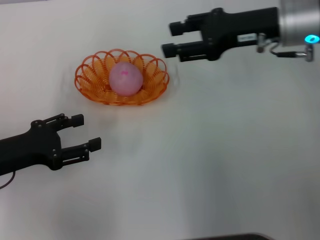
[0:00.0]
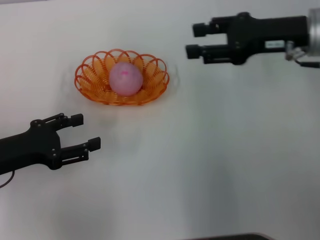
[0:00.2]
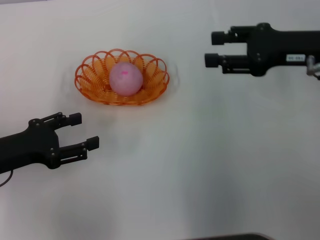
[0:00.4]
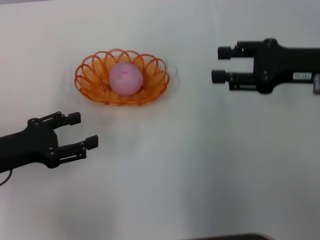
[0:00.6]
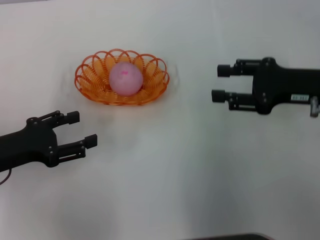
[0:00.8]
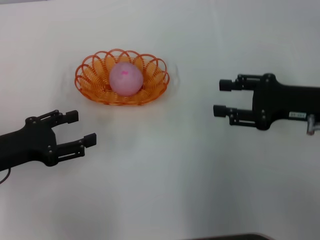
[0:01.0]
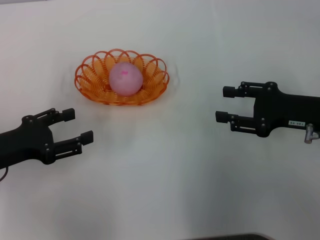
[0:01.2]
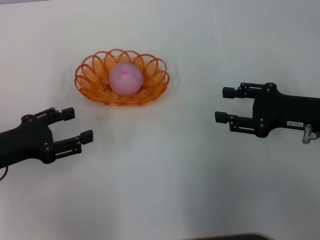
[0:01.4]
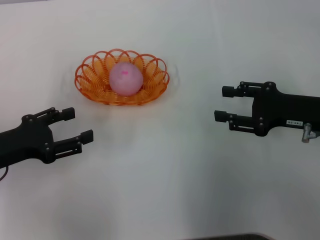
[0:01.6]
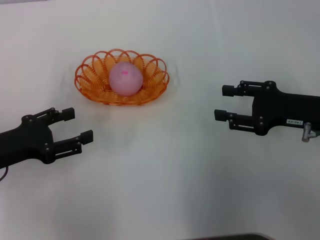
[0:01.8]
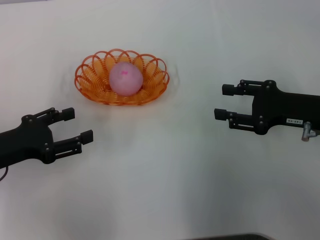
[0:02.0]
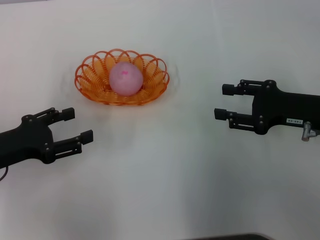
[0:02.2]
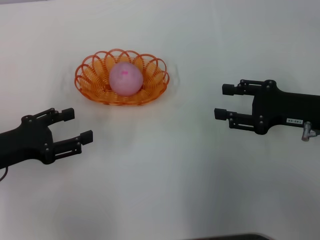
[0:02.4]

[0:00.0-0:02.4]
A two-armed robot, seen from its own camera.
0:00.0 to 0:01.2: The right gripper shifts approximately 15 cm backward, downward and to the right.
0:01.2 to 0:02.4: Both grippers stay put.

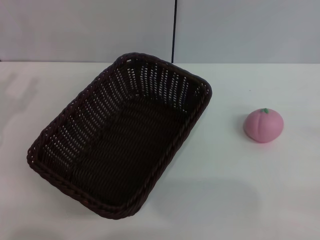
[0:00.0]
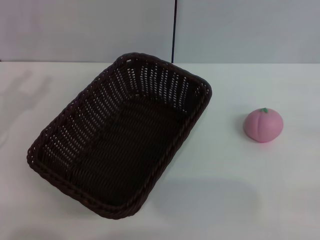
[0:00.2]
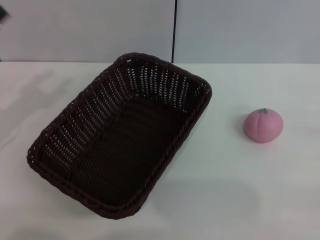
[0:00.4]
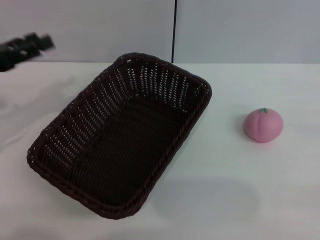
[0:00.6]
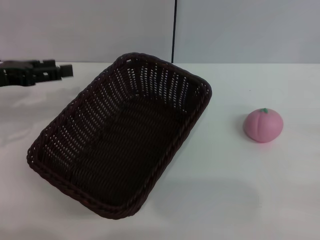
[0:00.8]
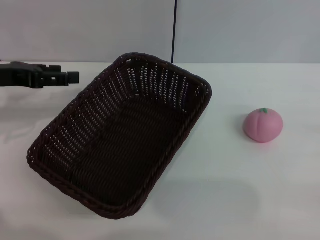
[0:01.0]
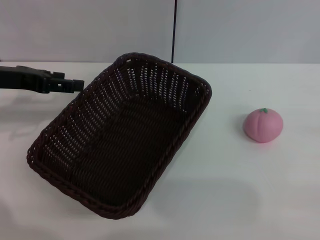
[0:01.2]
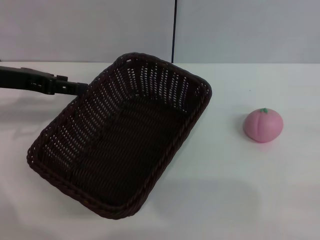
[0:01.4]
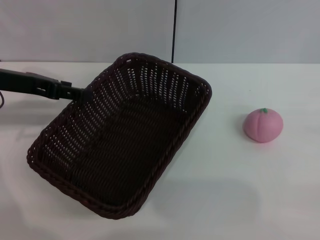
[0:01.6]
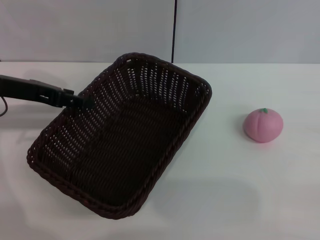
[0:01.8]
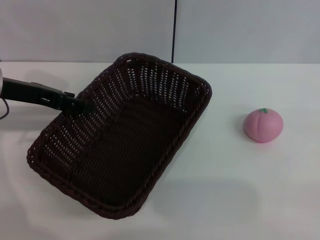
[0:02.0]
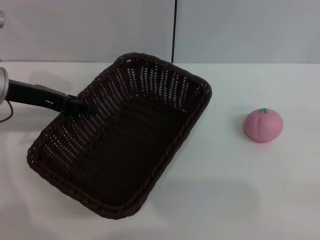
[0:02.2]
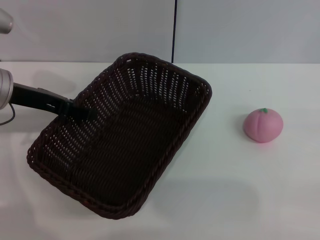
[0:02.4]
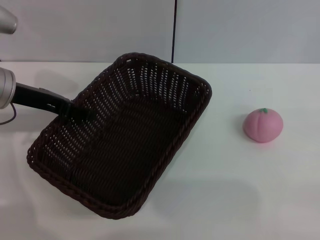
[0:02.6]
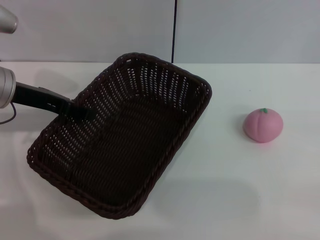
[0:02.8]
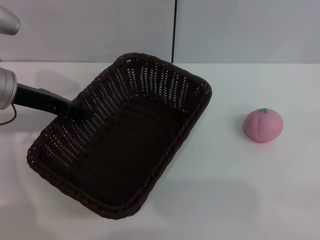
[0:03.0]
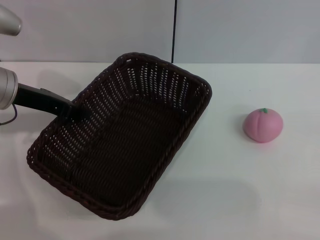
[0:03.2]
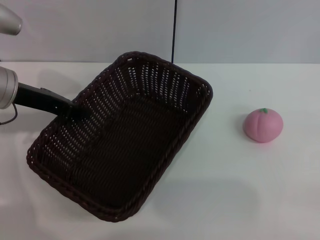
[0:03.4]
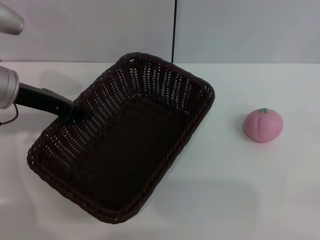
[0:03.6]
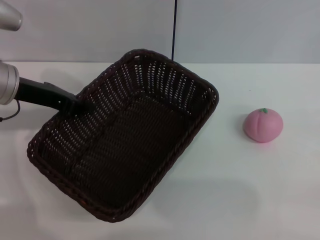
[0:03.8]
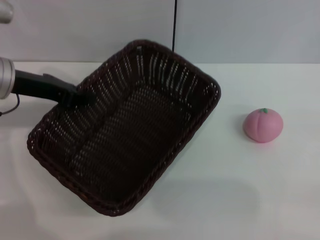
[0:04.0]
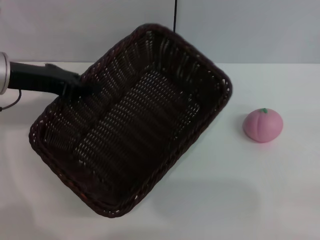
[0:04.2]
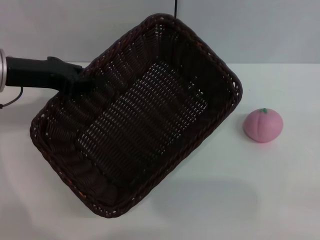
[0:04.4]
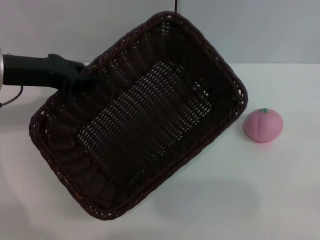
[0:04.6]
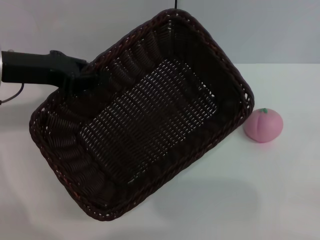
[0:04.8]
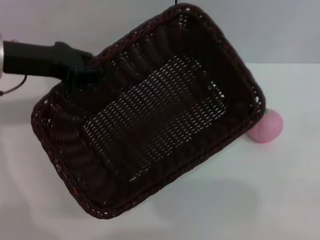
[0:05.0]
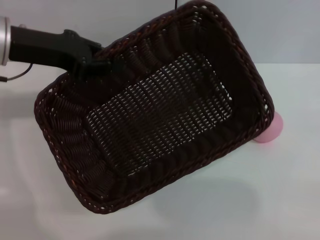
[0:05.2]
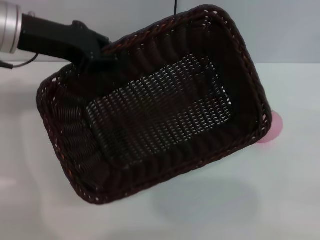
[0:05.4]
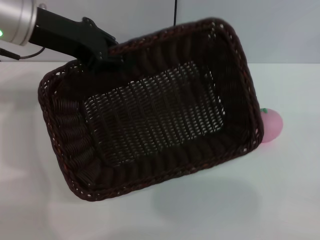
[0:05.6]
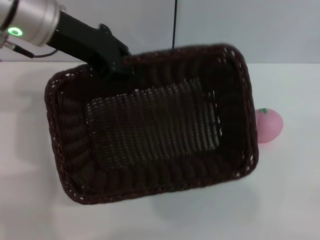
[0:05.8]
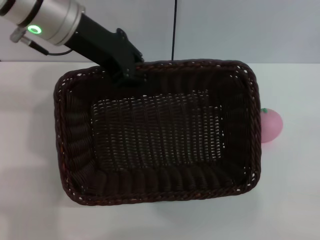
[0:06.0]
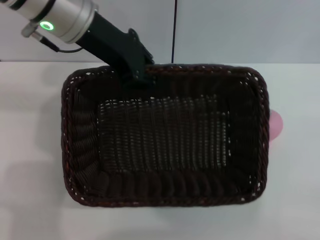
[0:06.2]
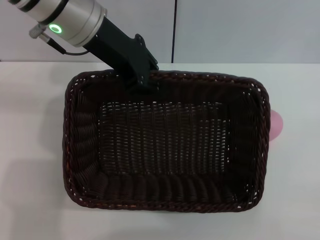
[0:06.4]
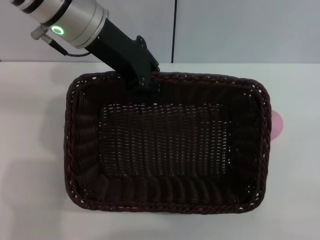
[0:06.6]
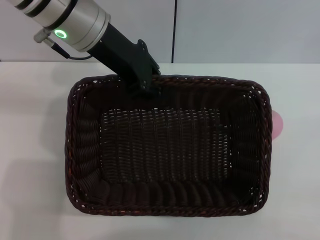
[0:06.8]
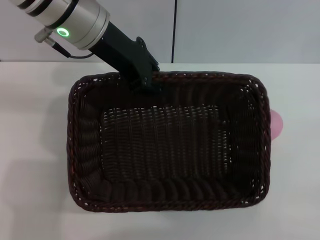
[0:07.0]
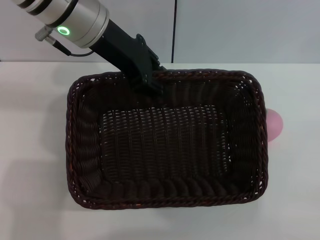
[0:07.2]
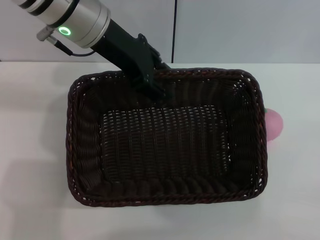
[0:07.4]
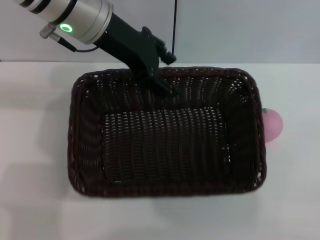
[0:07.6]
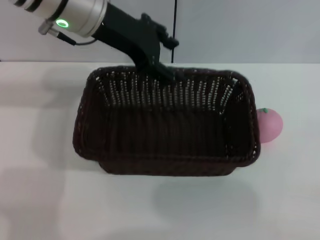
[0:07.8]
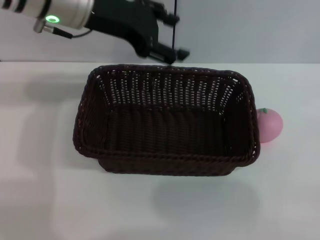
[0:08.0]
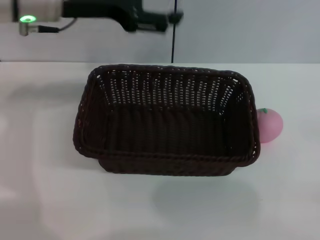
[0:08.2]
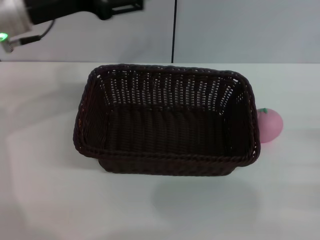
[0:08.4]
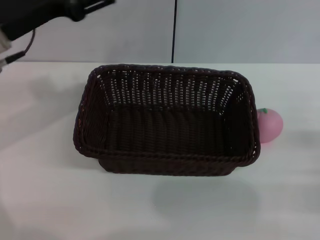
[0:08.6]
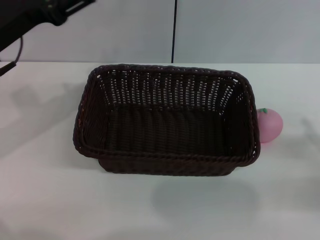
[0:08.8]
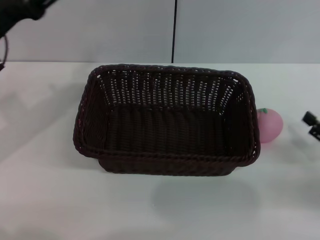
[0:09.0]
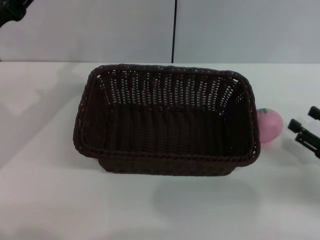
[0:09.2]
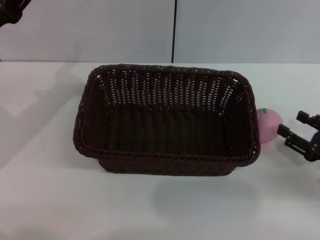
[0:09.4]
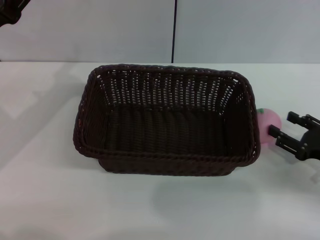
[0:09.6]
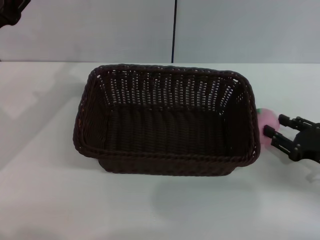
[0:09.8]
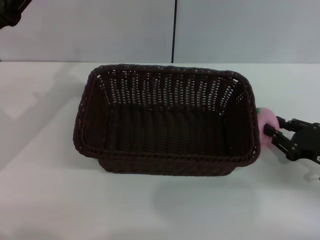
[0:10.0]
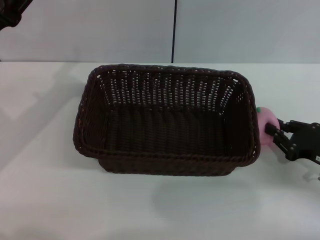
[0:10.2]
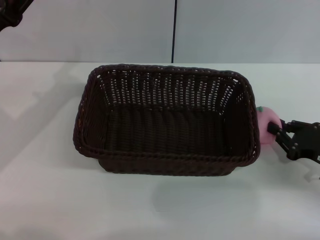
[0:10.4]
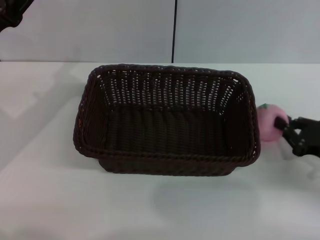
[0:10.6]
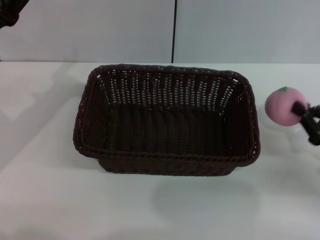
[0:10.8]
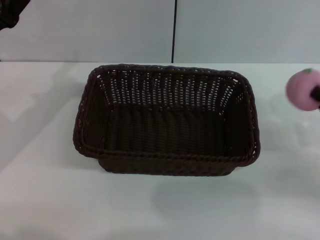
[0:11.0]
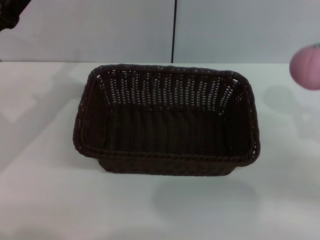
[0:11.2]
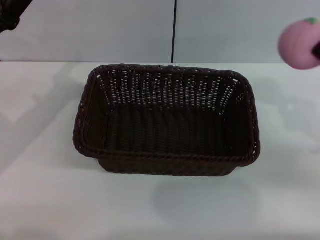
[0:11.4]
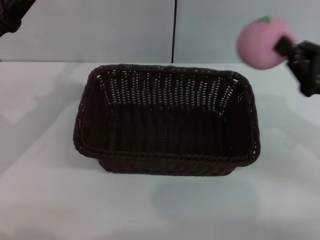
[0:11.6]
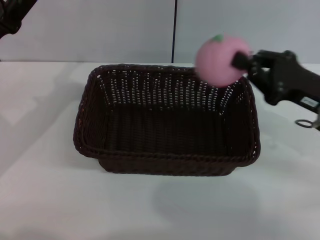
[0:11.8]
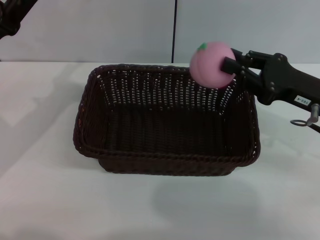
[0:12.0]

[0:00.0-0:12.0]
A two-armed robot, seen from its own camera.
Step, 0:00.0 to 0:04.0: Pick up the dark basket with the left gripper.
Step, 0:04.2 to 0:07.8: Place the dark basket in the center of view with the right gripper.
Step, 0:08.0 to 0:11.2: Pick up the peach with the left gripper.
0:00.0 to 0:01.6: The left gripper travels forward, upward and to the right by approximately 15 cm.
0:01.6 to 0:03.0: The left gripper closes its fingers.
0:03.0 to 0:04.4: The left gripper closes up.
0:04.4 to 0:06.0: The left gripper heads to the right and upward, covering approximately 15 cm.
0:06.0 to 0:07.6: The left gripper opens its fingers.
0:07.6 to 0:09.0: The left gripper goes about 20 cm to the left, backward and downward.
0:09.0 to 0:10.4: The right gripper shifts by roughly 5 cm, and closes.
0:10.4 to 0:12.0: The right gripper heads upward, to the left and forward, covering approximately 10 cm.

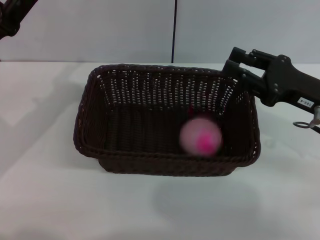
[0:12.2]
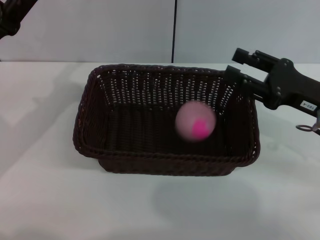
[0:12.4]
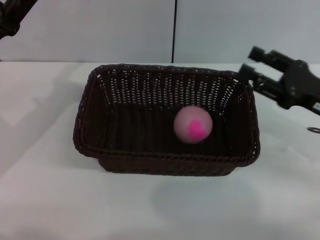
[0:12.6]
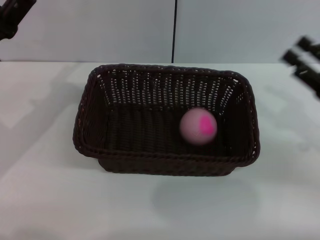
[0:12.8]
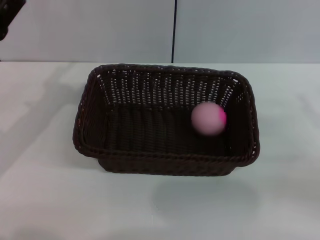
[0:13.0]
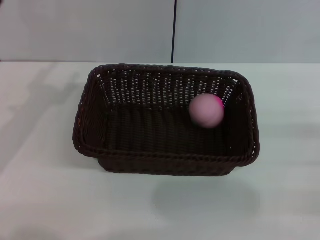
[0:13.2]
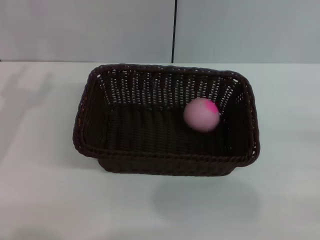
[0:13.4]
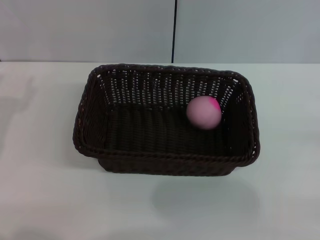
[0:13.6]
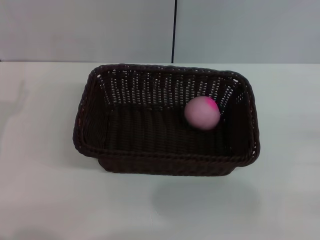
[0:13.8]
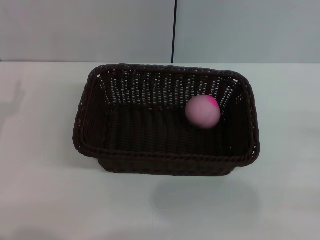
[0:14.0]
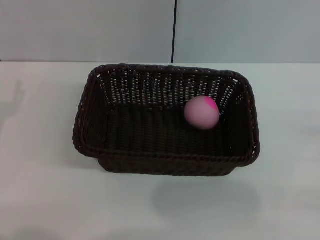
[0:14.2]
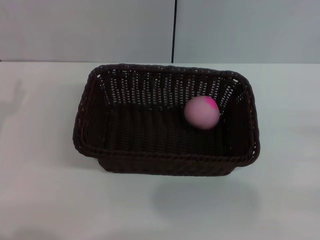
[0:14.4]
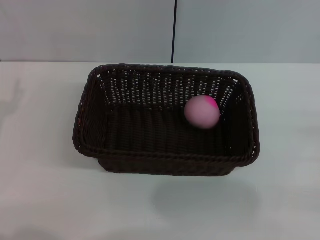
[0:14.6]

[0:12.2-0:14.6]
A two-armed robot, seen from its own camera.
0:12.2 to 0:13.4: The right gripper travels to the right and backward by approximately 20 cm, and opens its fingers, while the left gripper ends up about 5 cm from where it was.

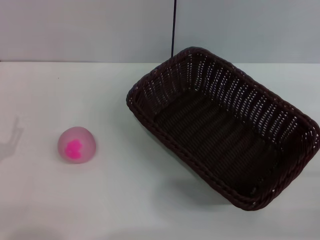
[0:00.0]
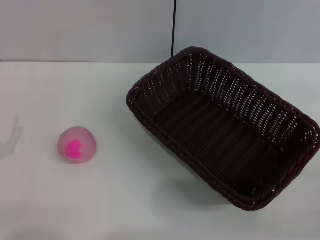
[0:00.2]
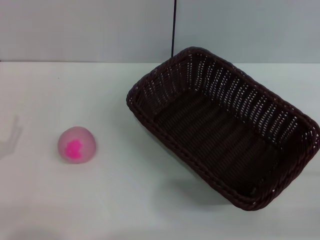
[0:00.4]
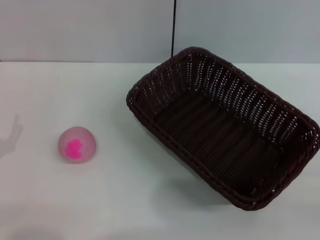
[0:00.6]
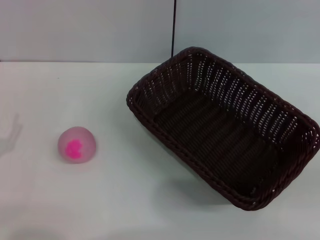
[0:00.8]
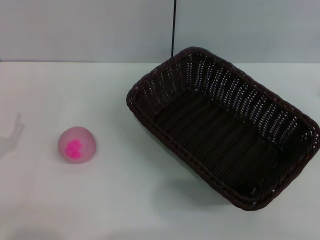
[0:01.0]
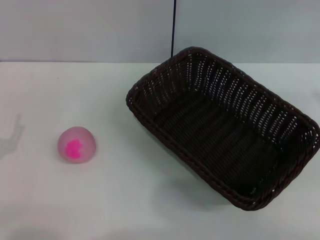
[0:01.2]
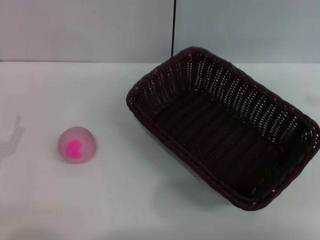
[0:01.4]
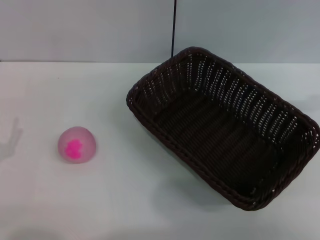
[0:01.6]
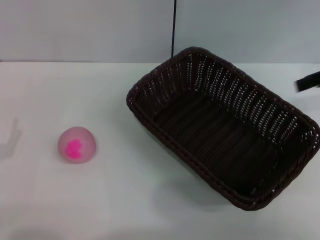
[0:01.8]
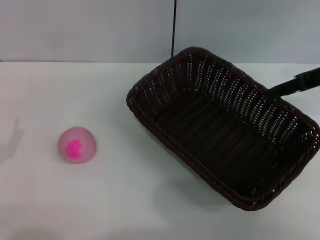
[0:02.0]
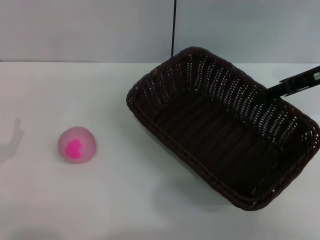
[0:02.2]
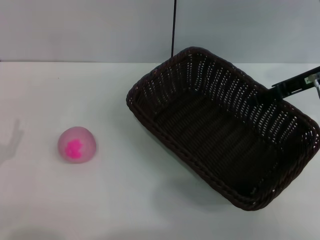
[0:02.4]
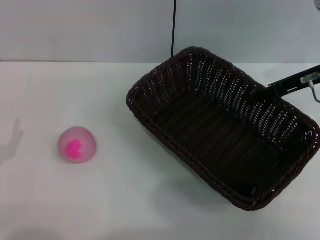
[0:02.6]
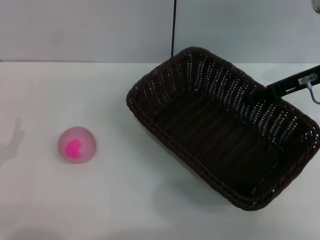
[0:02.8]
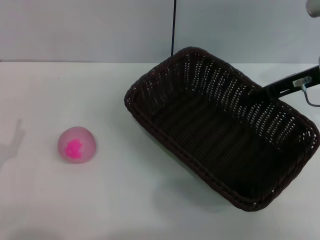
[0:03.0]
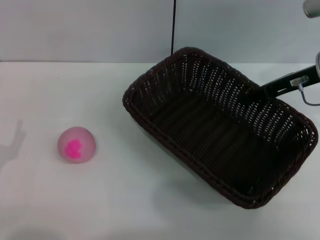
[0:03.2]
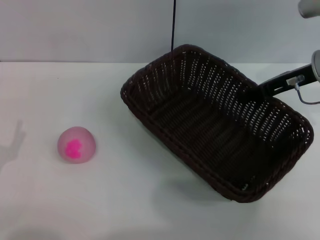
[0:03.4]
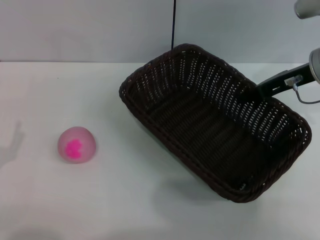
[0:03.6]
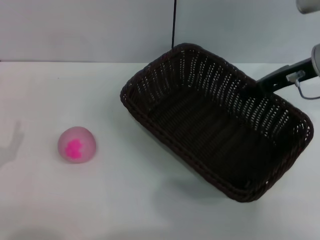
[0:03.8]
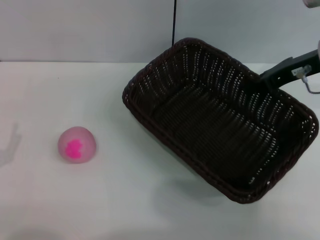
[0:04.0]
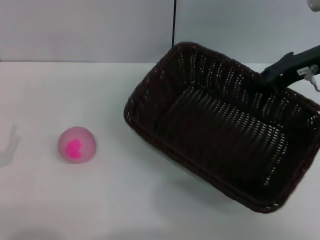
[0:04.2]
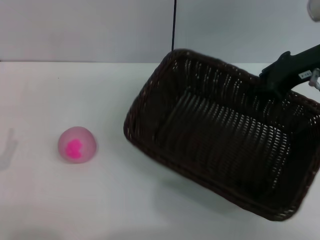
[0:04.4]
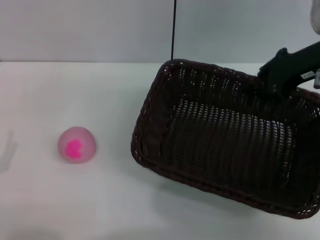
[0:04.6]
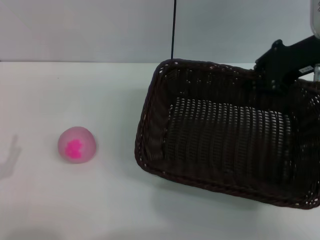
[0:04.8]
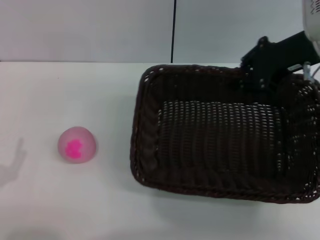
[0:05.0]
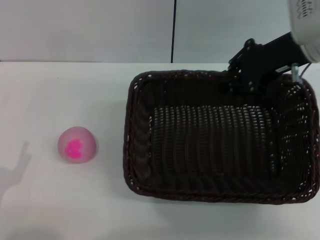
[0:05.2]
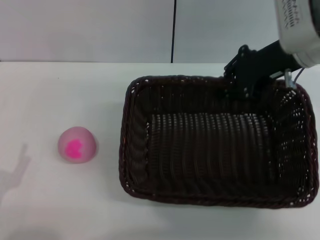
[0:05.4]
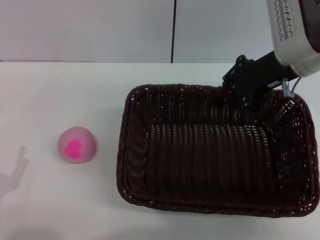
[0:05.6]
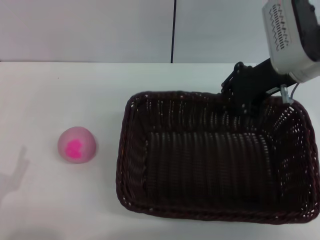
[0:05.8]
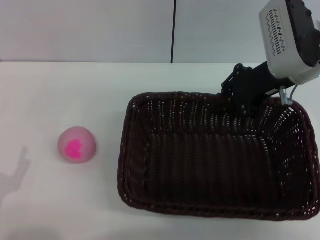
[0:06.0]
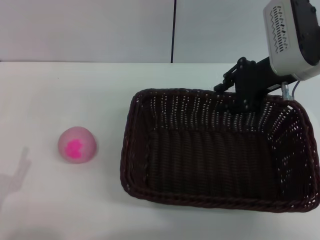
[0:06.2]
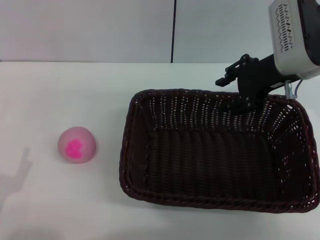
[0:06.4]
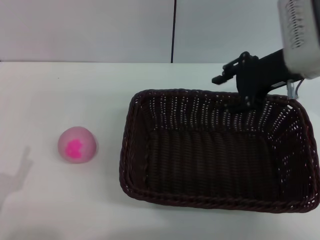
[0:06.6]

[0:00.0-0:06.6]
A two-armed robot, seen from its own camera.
Step, 0:00.0 to 0:04.0: Pick up the dark basket with the right gripper.
0:00.0 to 0:01.6: The right gripper shifts about 25 cm upward and forward.
0:01.6 to 0:03.2: The right gripper heads downward, to the left and forward, covering some 15 cm.
0:03.2 to 0:05.0: The right gripper is displaced upward by roughly 5 cm, and closes its fingers.
0:05.0 to 0:06.6: The right gripper opens.
